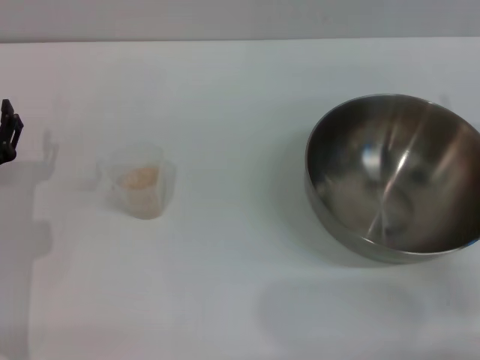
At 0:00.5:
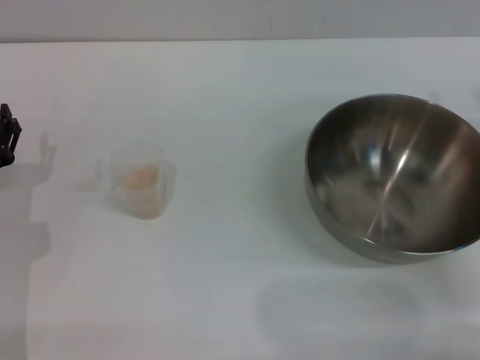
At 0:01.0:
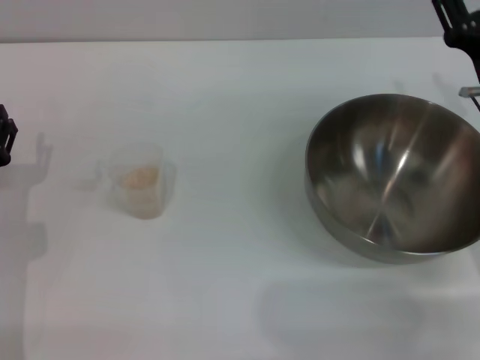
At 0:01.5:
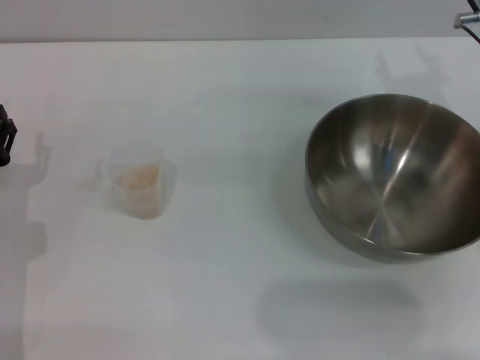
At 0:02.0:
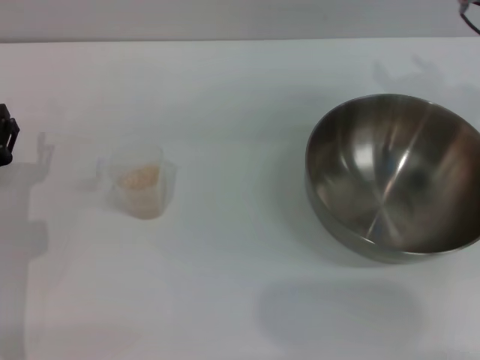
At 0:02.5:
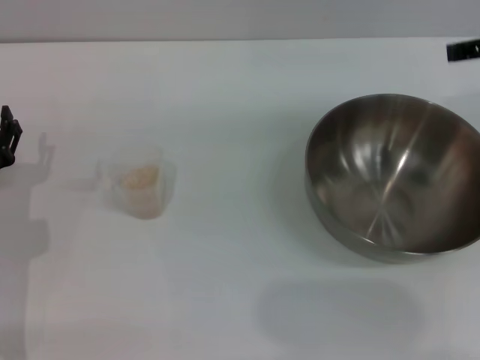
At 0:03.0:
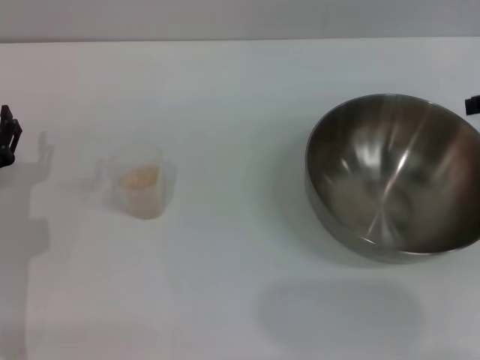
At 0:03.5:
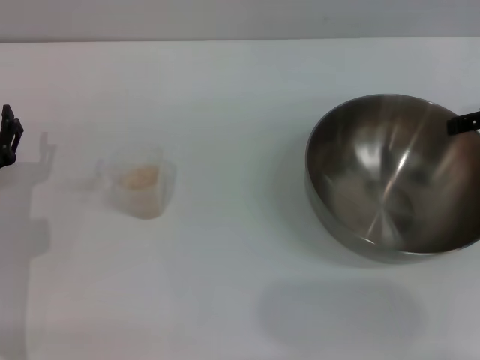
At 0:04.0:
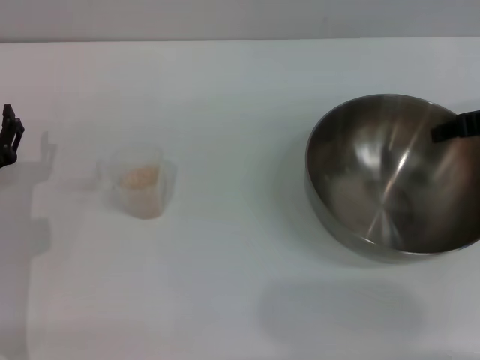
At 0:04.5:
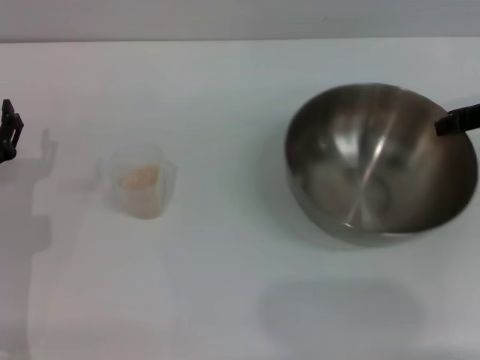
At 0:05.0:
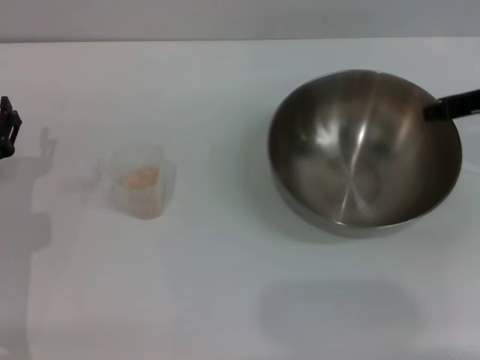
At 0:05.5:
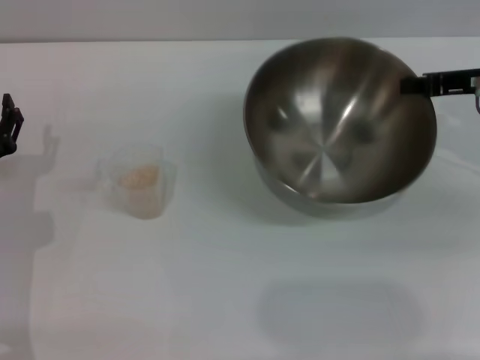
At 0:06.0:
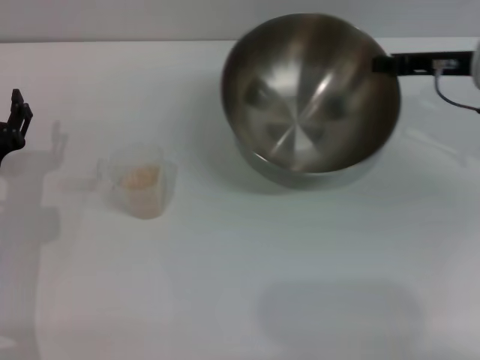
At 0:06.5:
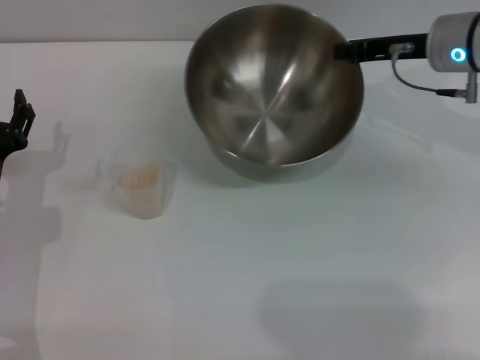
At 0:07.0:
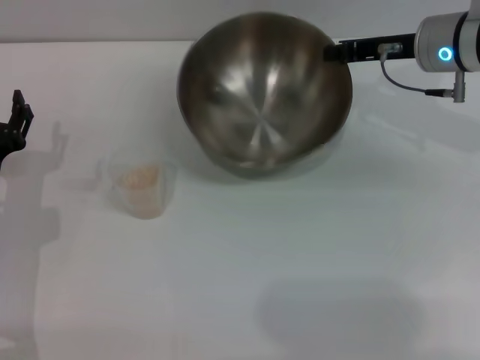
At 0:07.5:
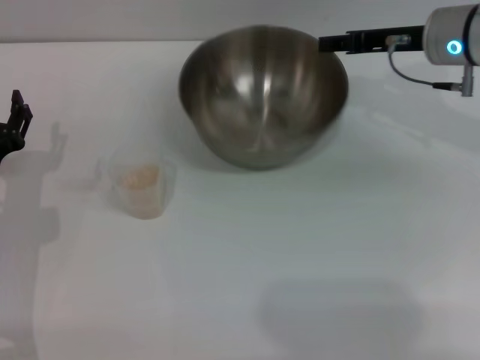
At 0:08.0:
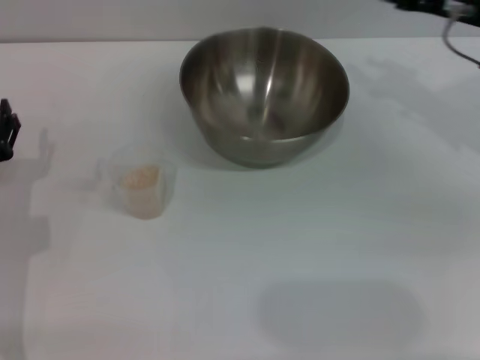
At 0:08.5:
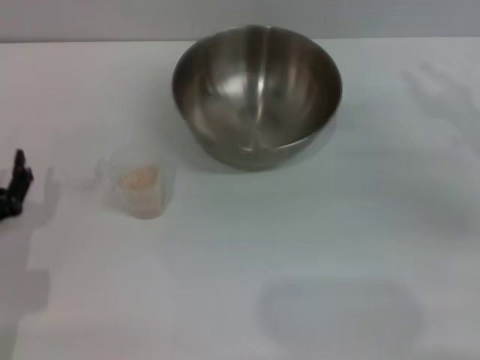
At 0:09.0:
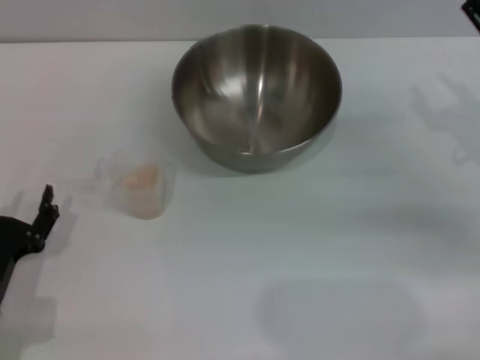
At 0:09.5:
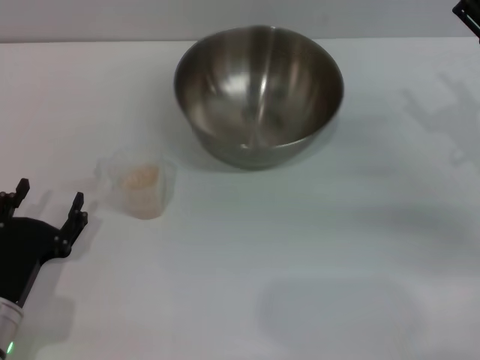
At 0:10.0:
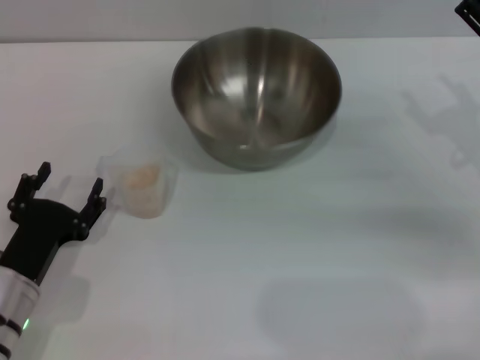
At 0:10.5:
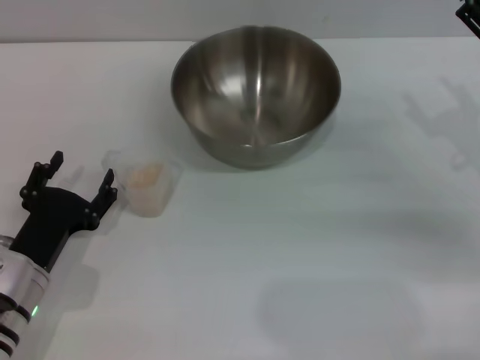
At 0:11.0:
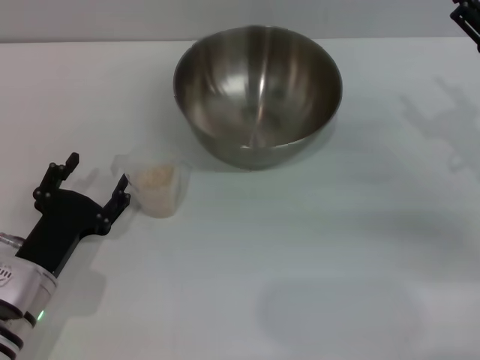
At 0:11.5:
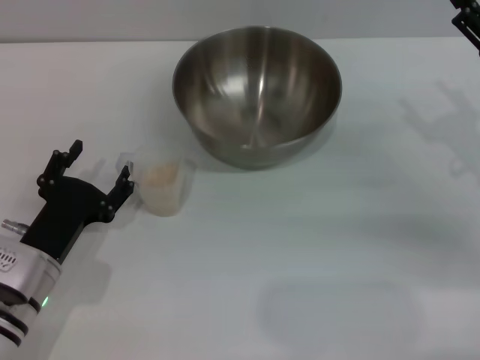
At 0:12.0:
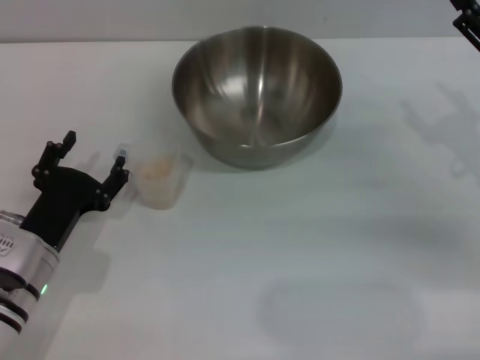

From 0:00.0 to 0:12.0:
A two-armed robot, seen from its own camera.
Task of the whole recording: Place the bowl in the middle of the table with one hand and pour the rice from the grain cup into it with the other hand.
Step, from 0:00.0 to 0:05.0: Pick up the bowl with the right gripper.
Step, from 0:06.0 to 0:07.5: Place the bowl in the center of view with the right gripper.
From 0:00.0 to 0:02.0: The right gripper shifts about 20 cm upward and forward.
From 0:02.0 to 0:04.0: The right gripper goes approximately 10 cm to the right and downward.
From 0:04.0 to 0:06.0: The right gripper changes place by some 5 cm, and closes.
From 0:06.0 to 0:08.0: The right gripper opens up.
From 0:08.0 to 0:10.0: The left gripper moves backward, roughly 5 cm. The right gripper heads backward and downward, covering roughly 10 cm, and opens its fingers.
From 0:10.0 to 0:12.0: The grippers stay close to where they were, moving slightly.

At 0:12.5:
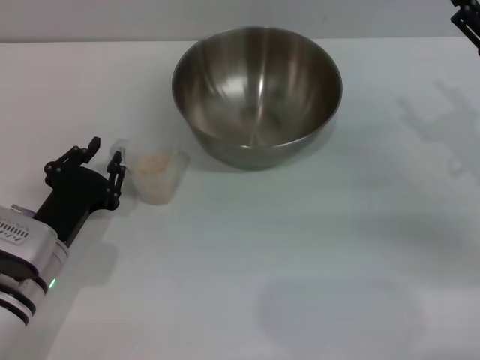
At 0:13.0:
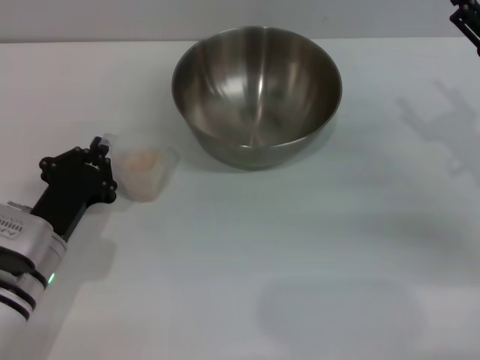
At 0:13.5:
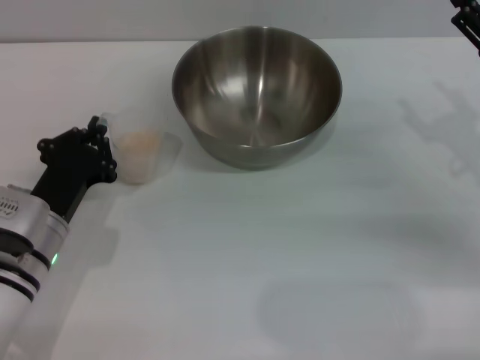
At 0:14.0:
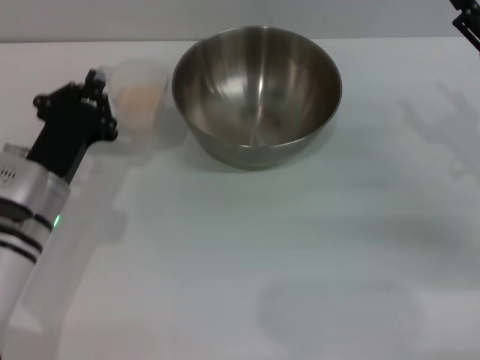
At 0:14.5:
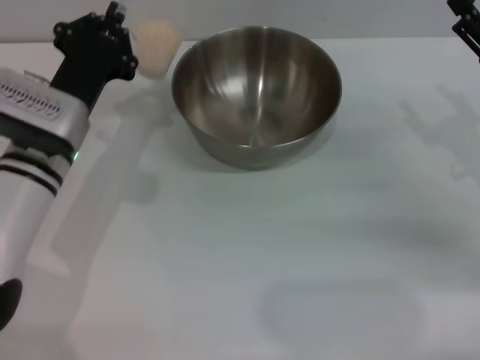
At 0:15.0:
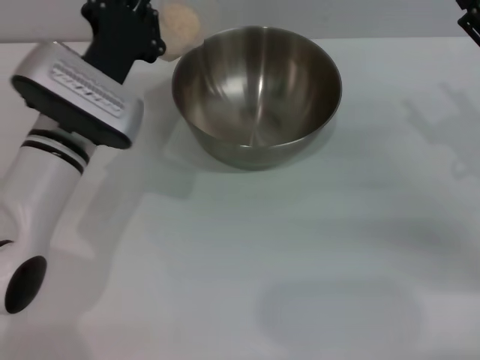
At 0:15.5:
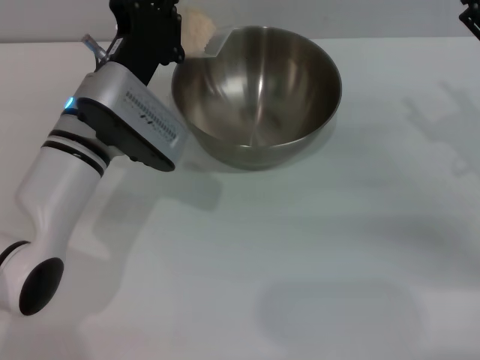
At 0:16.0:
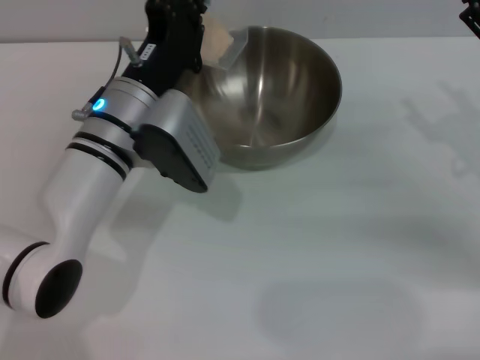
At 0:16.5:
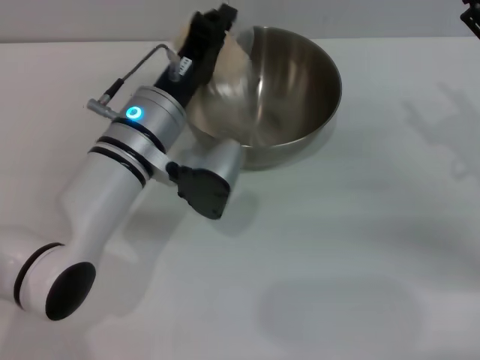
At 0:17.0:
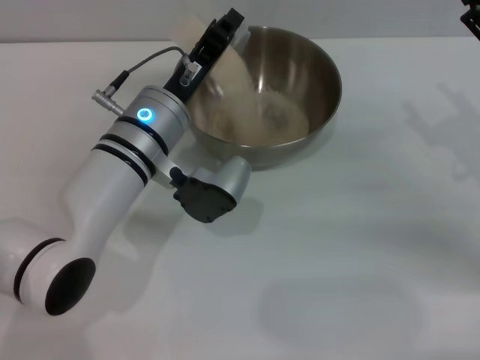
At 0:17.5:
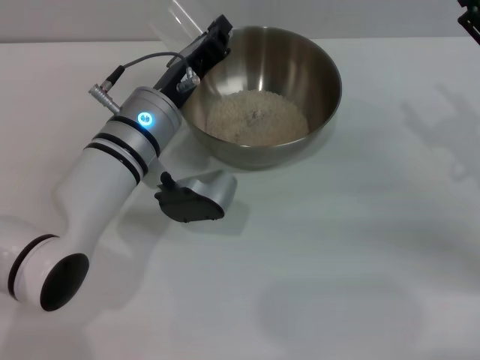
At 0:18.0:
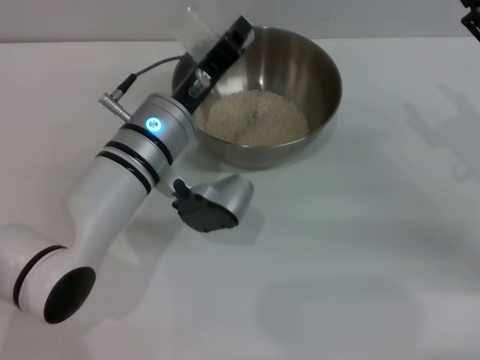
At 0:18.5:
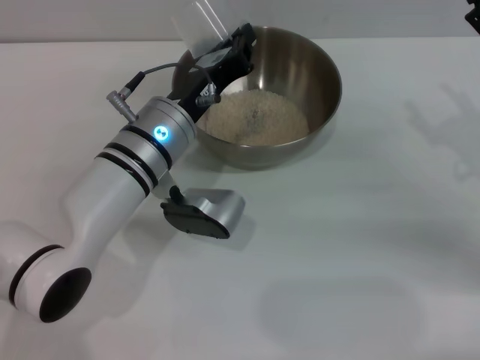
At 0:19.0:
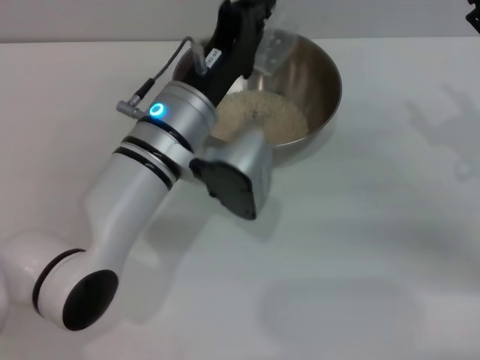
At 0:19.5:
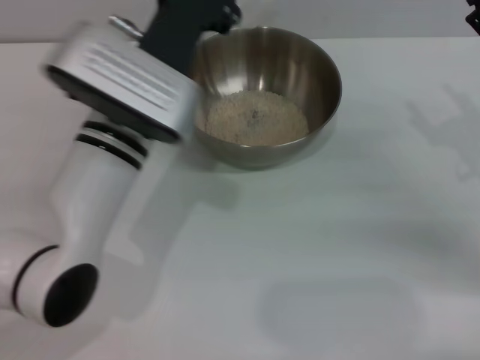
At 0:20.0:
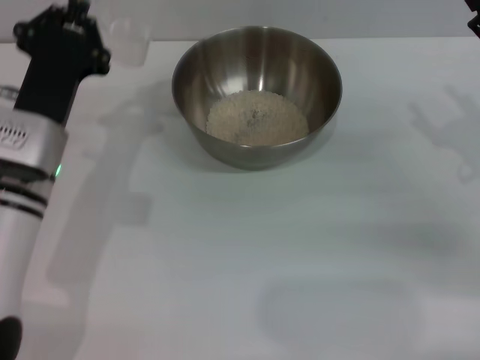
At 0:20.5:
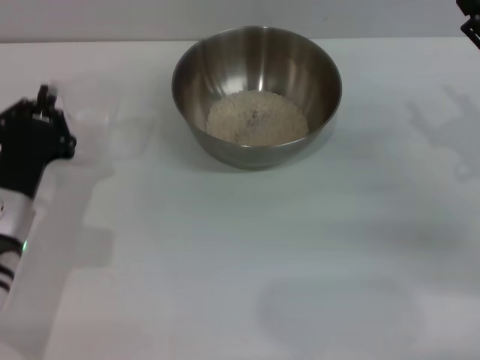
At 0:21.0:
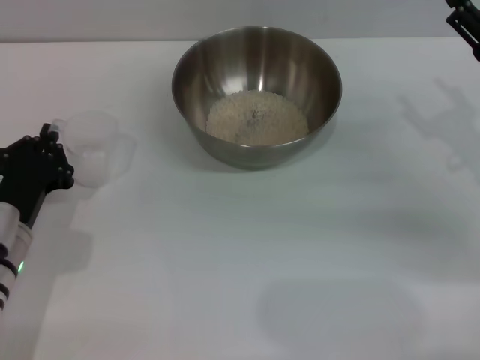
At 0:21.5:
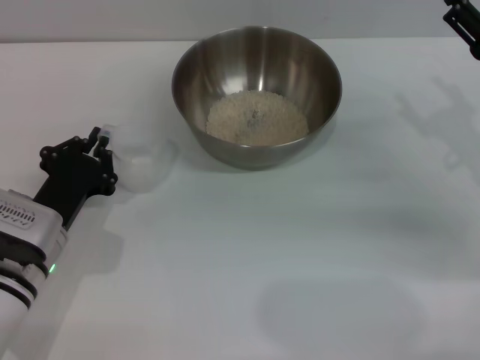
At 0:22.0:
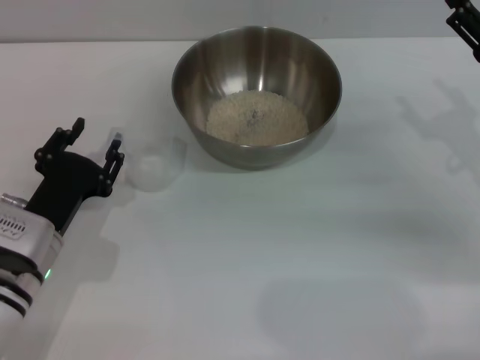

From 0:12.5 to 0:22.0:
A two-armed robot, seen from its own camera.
Task of the whole recording: Place the bowl in the middle of the table with one hand and pour the rice from the grain cup into it with the other hand.
Step, from 0:14.5 to 0:17.5: Pour the rice from the cup into the bowl with the left gripper.
Step, from 0:18.0 to 0:22.0: Place the cup on the table with the left gripper.
From 0:12.5 to 0:14.5: The left gripper is displaced forward and upward by approximately 10 cm, and closes its fingers.
From 0:14.5 to 0:16.5: The left gripper goes about 10 cm to the right.
From 0:18.0 to 0:20.0: The left gripper is displaced to the left by some 10 cm.
From 0:20.0 to 0:22.0: The left gripper goes approximately 10 cm downward and backward, and opens.
